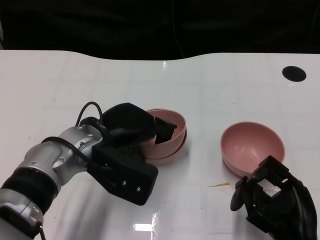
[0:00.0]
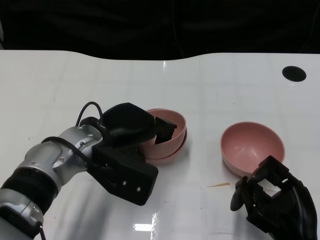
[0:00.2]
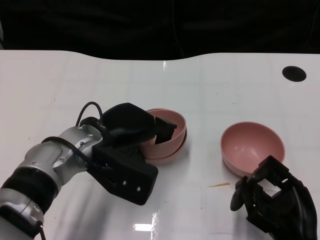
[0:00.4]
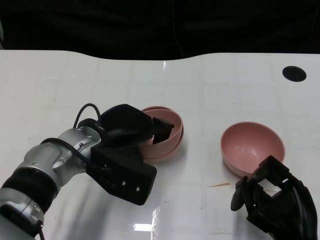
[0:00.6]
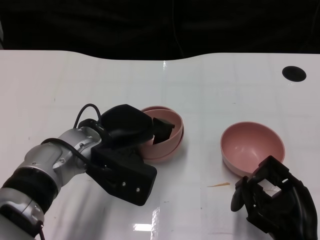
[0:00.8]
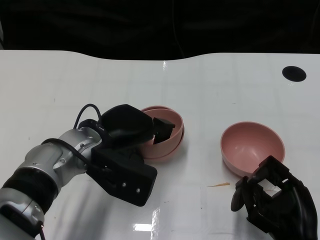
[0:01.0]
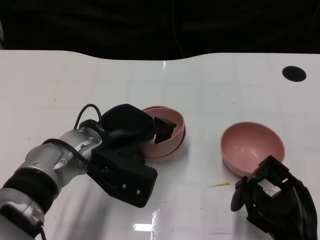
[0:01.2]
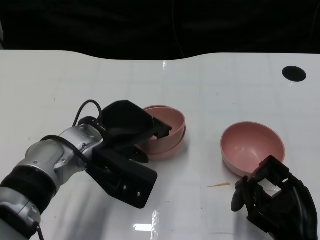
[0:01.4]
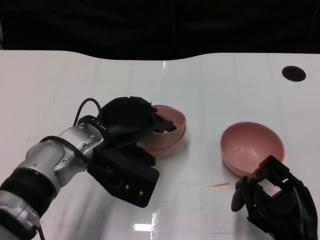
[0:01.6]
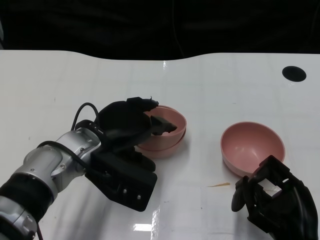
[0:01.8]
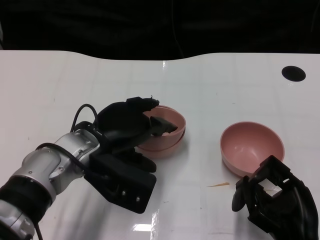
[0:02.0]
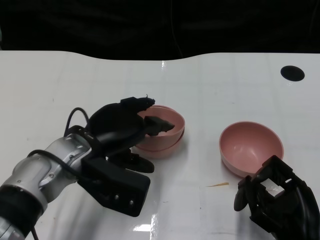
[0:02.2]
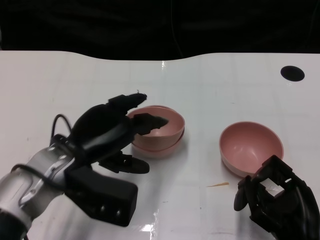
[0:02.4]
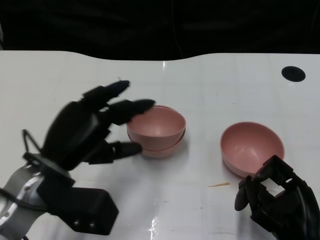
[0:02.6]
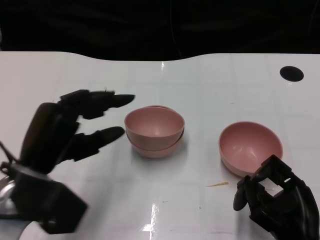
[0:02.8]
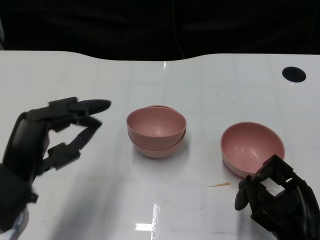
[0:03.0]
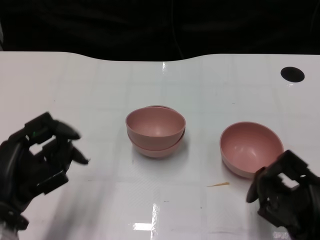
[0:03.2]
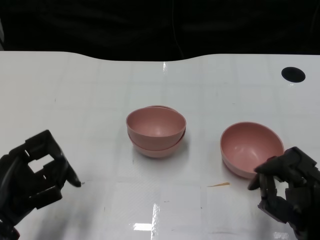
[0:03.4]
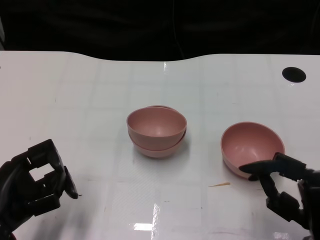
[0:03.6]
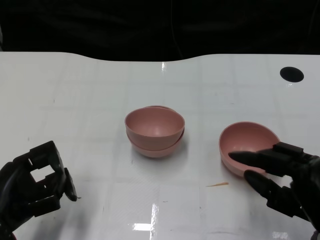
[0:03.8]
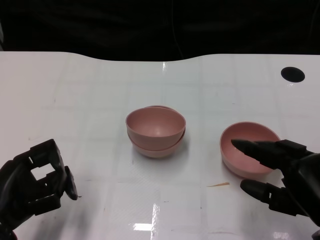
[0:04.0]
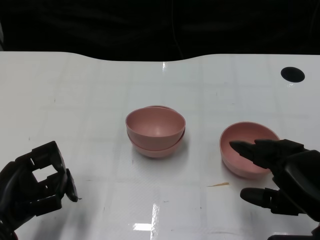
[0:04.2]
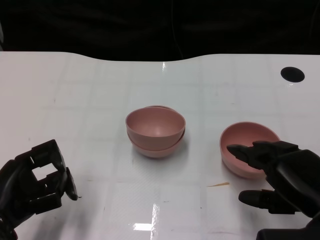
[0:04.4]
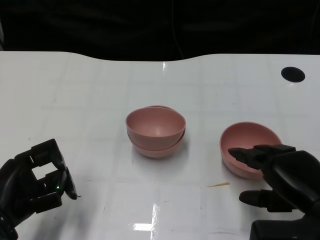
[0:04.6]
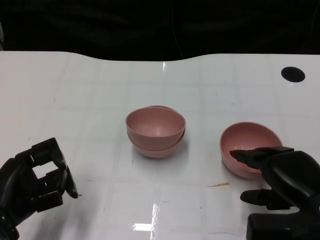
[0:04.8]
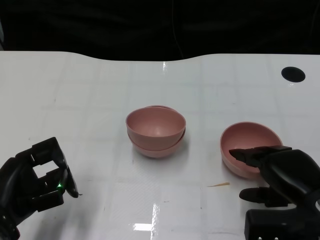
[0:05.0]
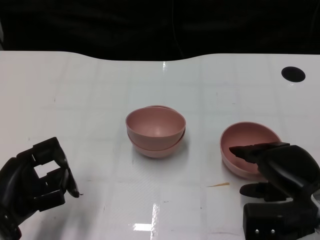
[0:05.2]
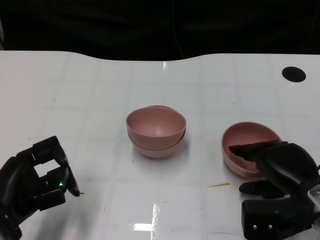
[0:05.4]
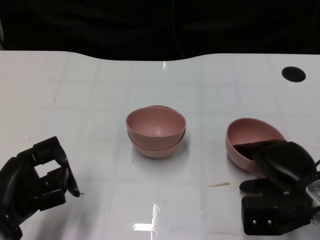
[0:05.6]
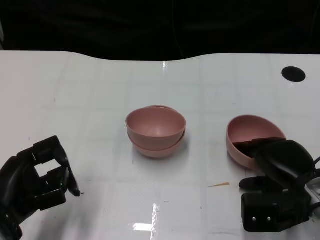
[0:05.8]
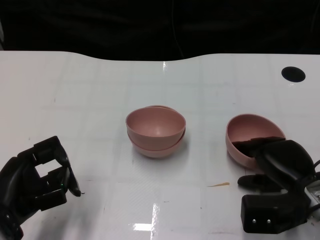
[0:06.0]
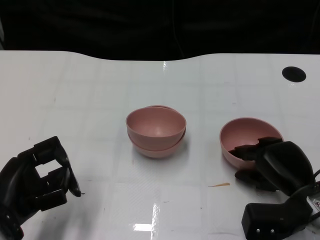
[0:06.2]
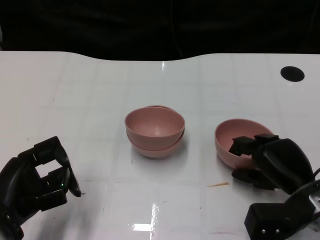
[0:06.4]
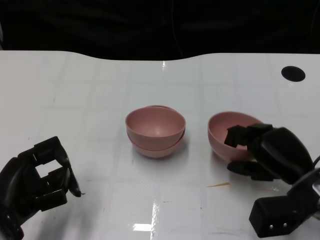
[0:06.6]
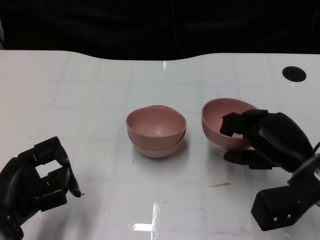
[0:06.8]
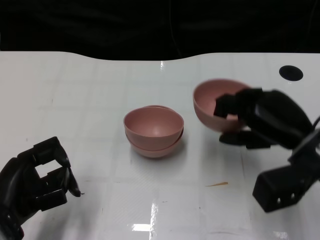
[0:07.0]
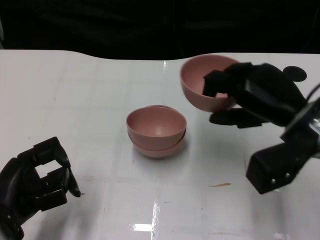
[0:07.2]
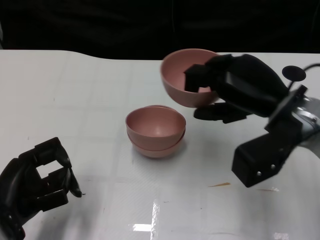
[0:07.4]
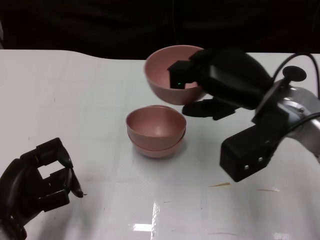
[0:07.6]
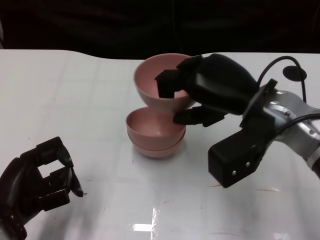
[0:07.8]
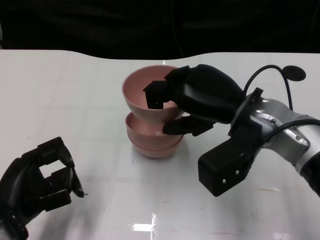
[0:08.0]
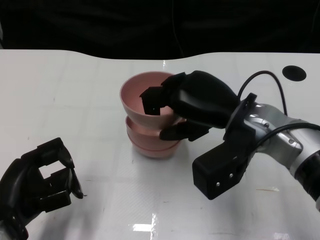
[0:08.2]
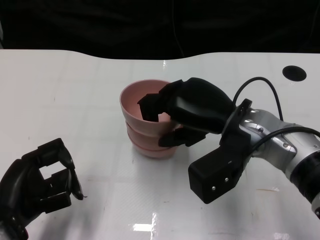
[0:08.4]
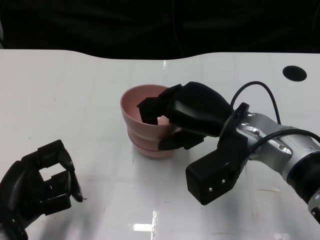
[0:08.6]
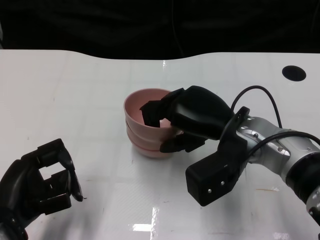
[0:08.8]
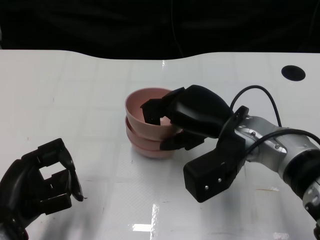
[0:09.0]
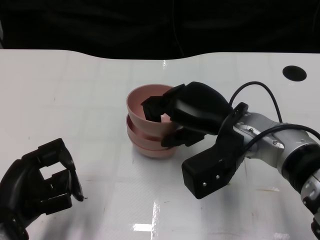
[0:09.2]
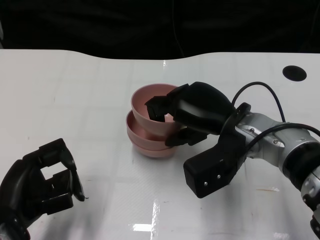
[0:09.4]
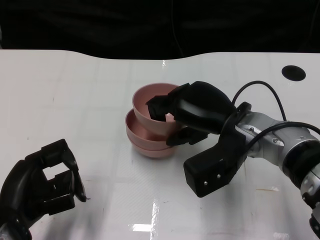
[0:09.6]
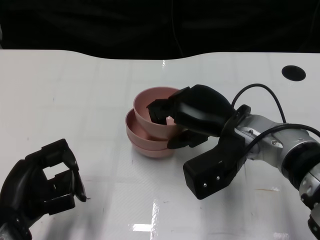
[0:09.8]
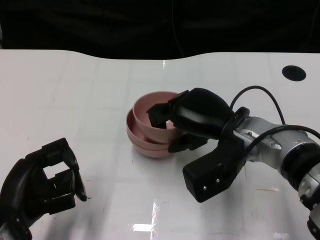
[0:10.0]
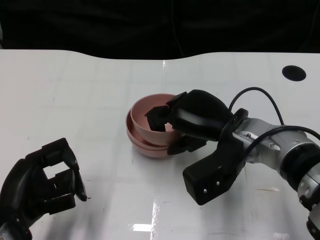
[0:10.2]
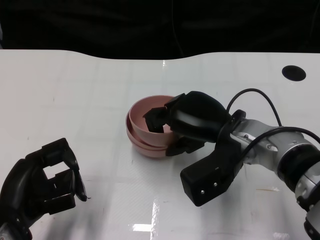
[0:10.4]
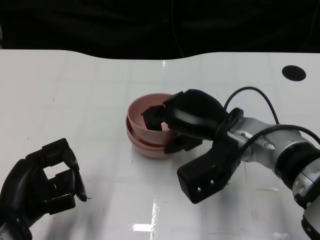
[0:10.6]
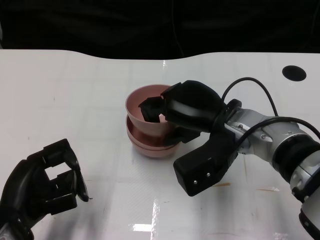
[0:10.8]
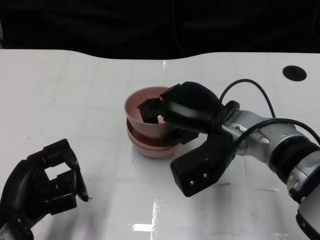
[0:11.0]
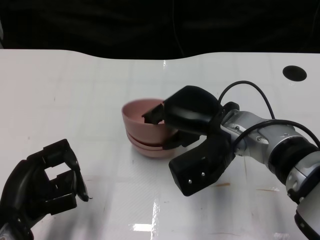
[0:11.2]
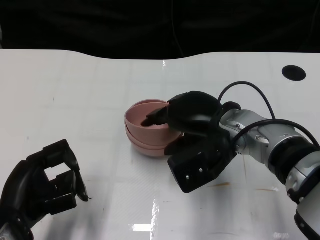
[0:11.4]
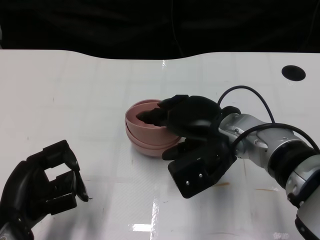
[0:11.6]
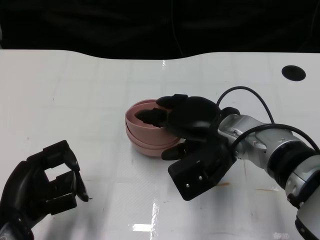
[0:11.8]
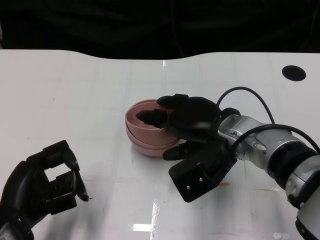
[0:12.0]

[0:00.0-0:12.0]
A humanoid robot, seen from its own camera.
Task of the whole recording: Pick up the bowl on one side of the table and place it on top of the middle bowl, then pick up the bowl on the other side of the table and place it on top of the middle bowls.
Step, 0.0 to 2.2 s: Place the bowl on the left onto the bowl in the middle with left gripper.
Step, 2.4 to 6.6 s: Grasp the bowl on the right with the right gripper.
0.0 to 1.6 s: The hands move only a little.
1.6 to 3.0 s: The left hand travels to the left and backward by roughly 15 cm.
3.0 to 4.4 s: The left hand shifts by some 5 cm, while the right hand goes about 5 cm upward.
4.4 to 6.0 s: The right hand shifts about 10 cm forward and downward.
6.0 to 7.6 s: The right hand moves upward and to the left, some 15 cm.
7.6 to 9.0 s: The right hand goes some 5 cm downward.
9.0 to 10.4 s: The hands stay close to where they were, moving slightly.
10.4 to 12.0 s: The hands move only a little.

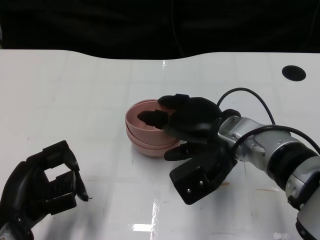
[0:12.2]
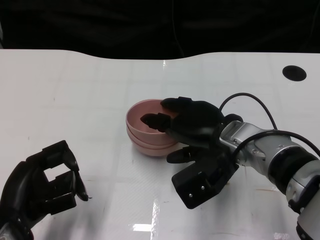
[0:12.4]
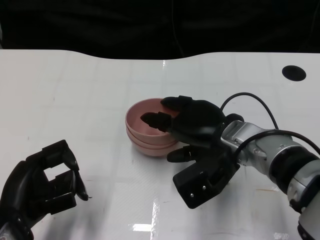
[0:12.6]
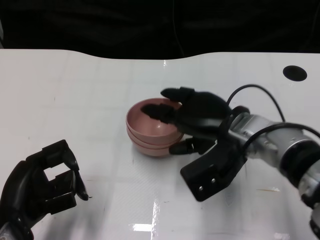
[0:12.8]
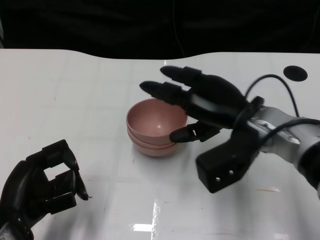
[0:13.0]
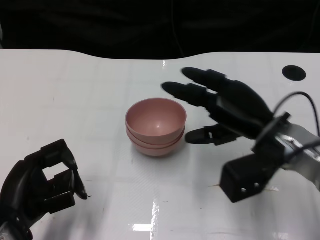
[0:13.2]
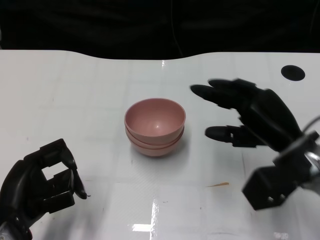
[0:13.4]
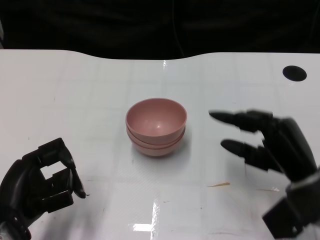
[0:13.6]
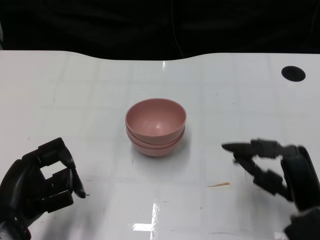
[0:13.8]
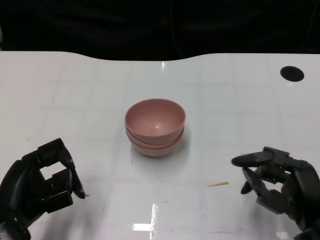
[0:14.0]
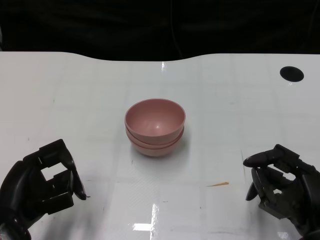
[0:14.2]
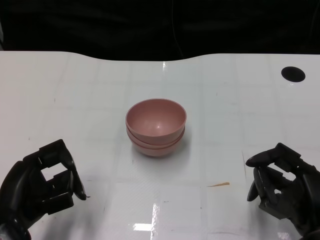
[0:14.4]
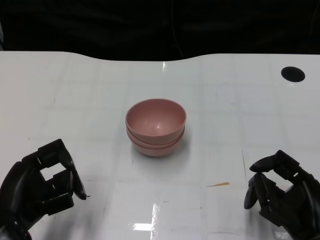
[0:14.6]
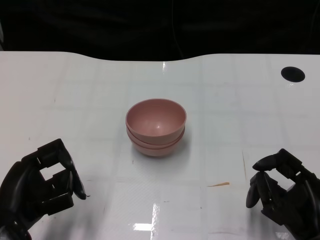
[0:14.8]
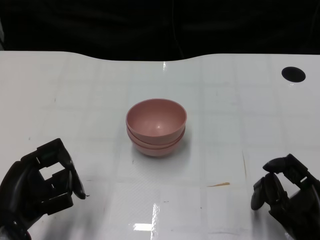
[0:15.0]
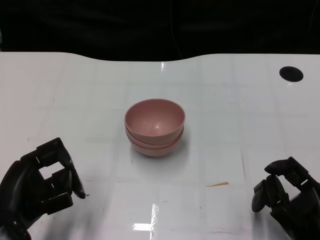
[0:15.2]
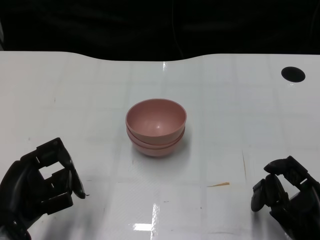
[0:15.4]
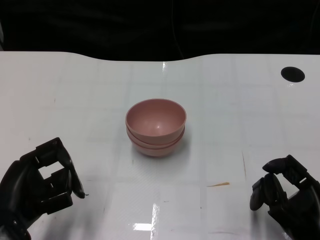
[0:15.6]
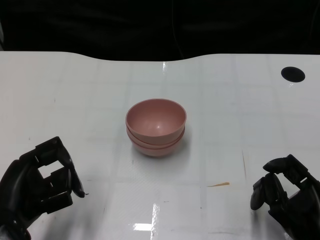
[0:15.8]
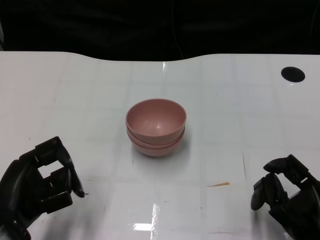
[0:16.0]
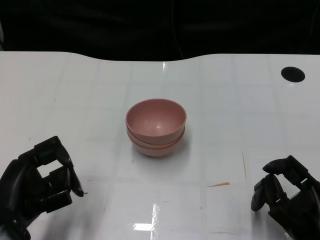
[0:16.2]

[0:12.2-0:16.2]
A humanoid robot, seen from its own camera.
Task of the whole recording: Pick up the bowl on one side of the table and place it on top of the middle bowl, then pick up the bowl on the other side of the table and place it on top of the middle bowls.
12.2 to 13.6 s: The right hand travels to the right and backward by some 15 cm.
13.6 to 14.8 s: The right hand moves backward, roughly 10 cm.
14.8 to 16.2 s: The hands make only small movements.

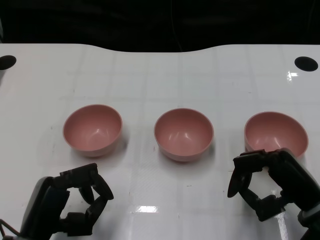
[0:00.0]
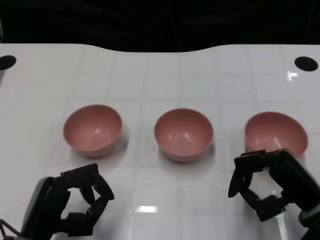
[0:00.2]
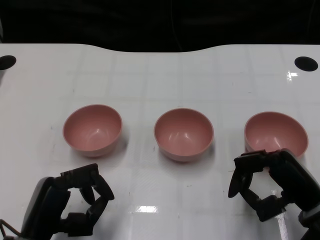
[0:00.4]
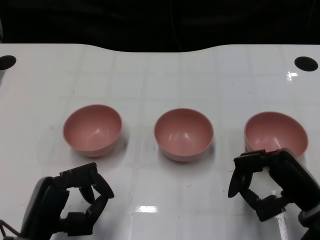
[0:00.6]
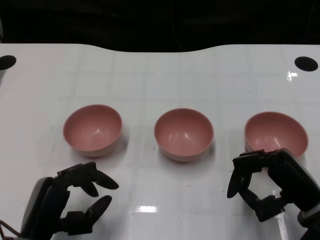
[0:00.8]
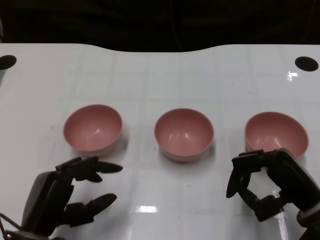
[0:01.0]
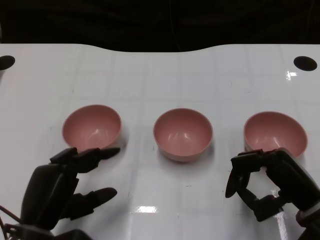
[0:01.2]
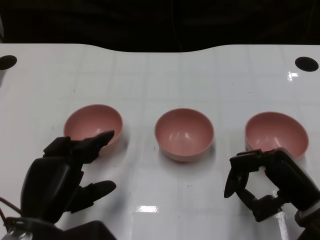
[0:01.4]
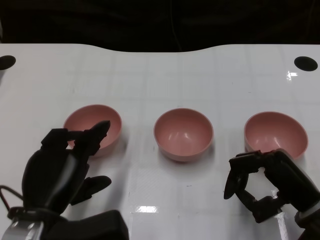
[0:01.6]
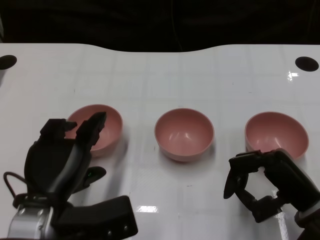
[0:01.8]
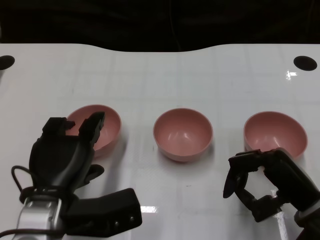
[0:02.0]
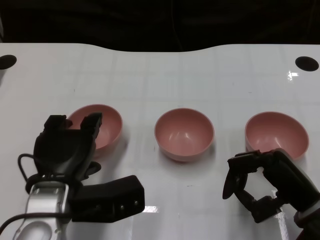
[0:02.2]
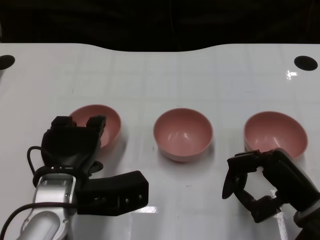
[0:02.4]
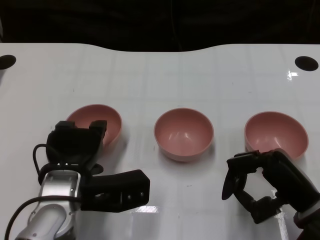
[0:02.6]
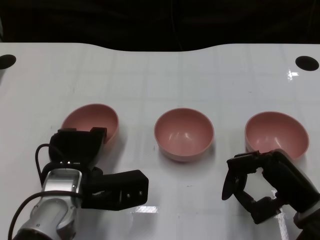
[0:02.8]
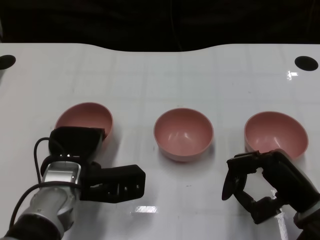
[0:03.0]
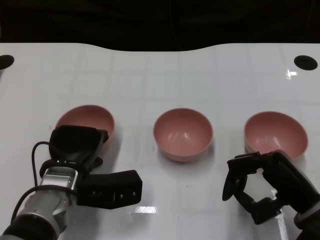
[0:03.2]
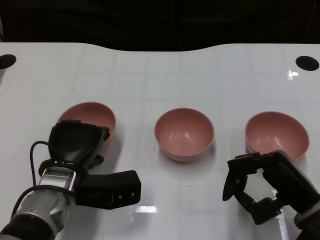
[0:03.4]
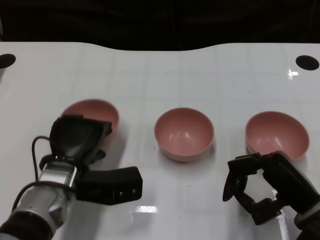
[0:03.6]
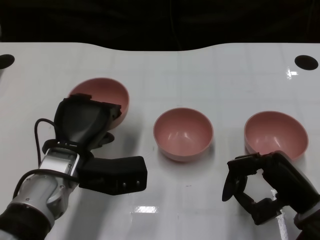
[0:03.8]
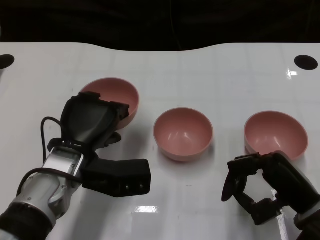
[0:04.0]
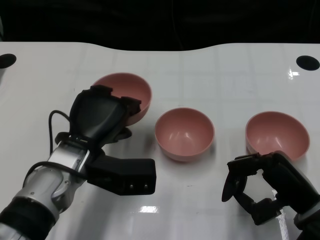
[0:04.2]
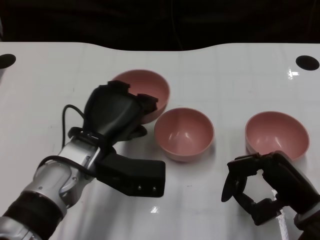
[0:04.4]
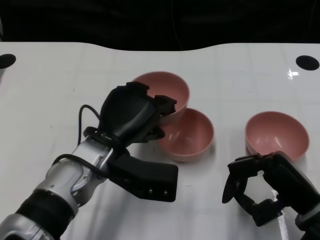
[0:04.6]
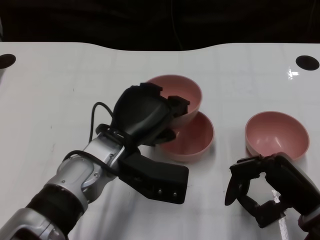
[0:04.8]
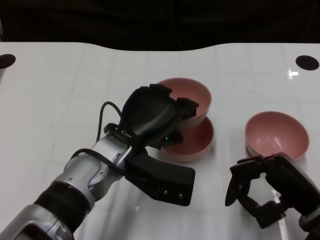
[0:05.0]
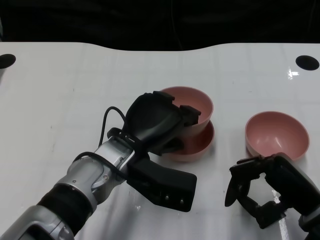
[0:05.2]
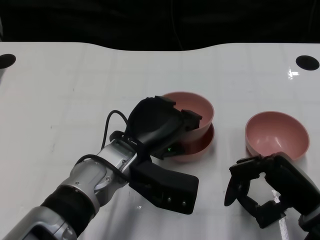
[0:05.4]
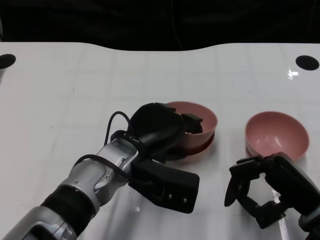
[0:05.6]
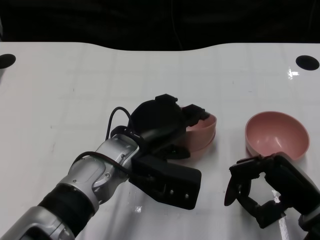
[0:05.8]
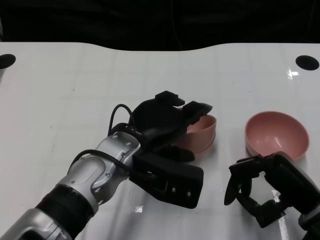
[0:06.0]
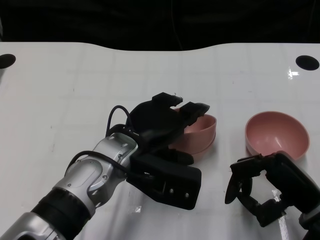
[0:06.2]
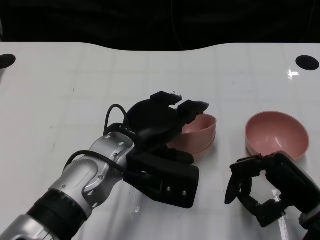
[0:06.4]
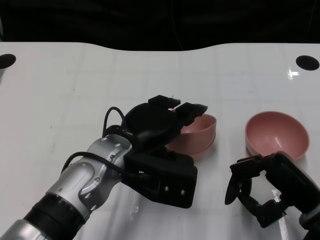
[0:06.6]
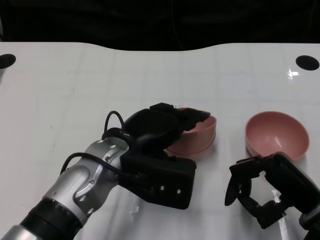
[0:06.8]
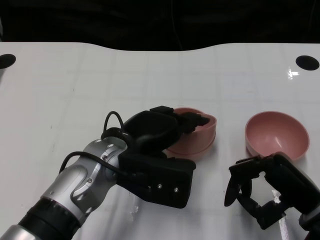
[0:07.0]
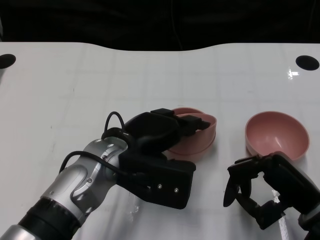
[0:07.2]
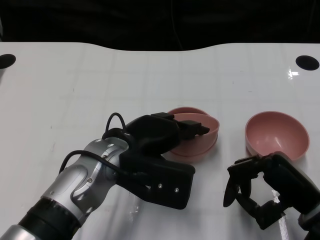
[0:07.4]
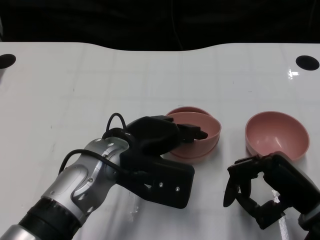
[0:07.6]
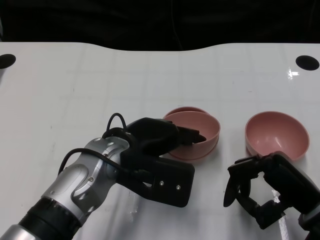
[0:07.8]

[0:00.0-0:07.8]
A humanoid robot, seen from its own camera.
Task of the whole recording: Pick up the bowl on one side of the table and place it on top of the middle bowl, then pick up the bowl on the other side of the table and place it on top of the middle bowls.
Step, 0.6 to 3.4 s: Grasp the bowl on the left with the left gripper.
1.6 to 3.2 s: The left hand goes approximately 10 cm forward.
3.2 to 4.6 s: The left hand heads upward and to the right, covering about 10 cm.
6.2 to 7.8 s: The hands make only small movements.
